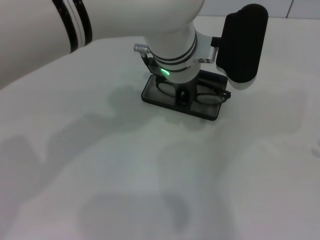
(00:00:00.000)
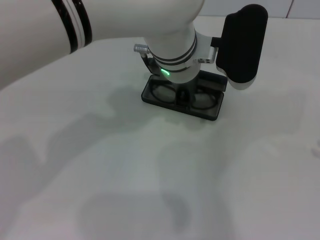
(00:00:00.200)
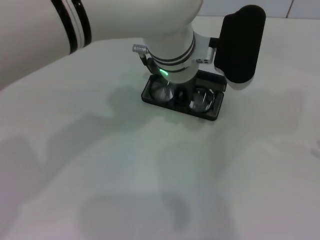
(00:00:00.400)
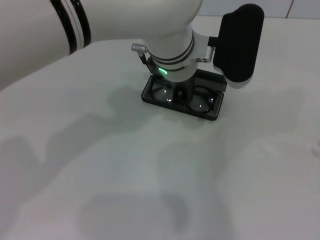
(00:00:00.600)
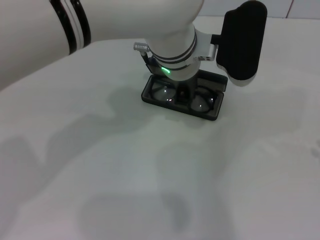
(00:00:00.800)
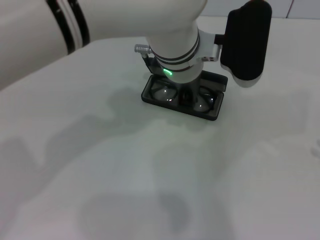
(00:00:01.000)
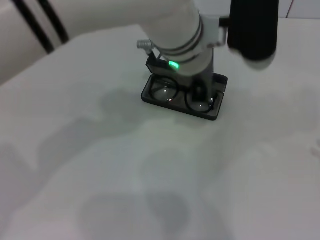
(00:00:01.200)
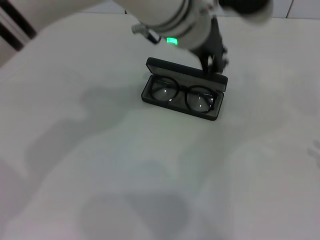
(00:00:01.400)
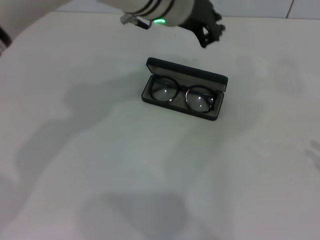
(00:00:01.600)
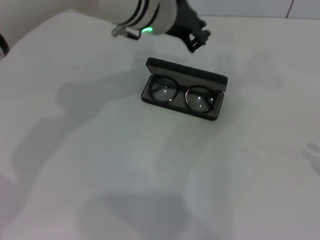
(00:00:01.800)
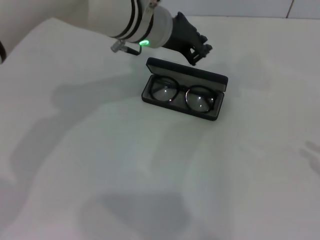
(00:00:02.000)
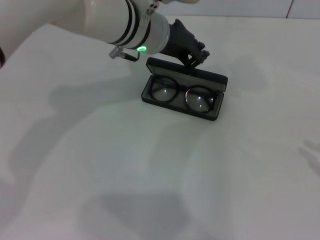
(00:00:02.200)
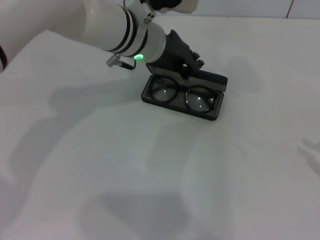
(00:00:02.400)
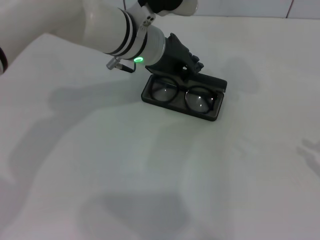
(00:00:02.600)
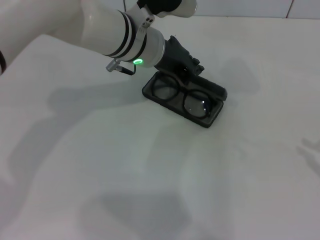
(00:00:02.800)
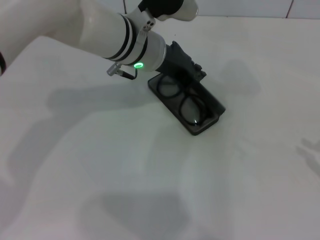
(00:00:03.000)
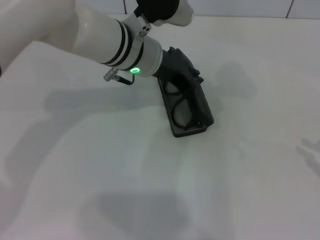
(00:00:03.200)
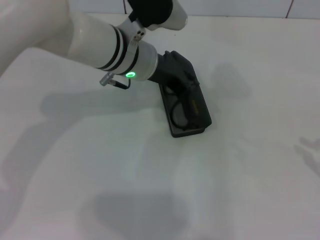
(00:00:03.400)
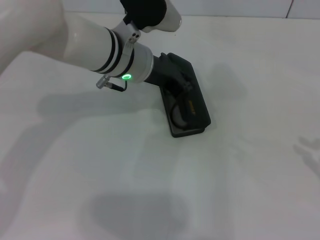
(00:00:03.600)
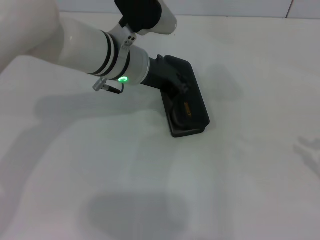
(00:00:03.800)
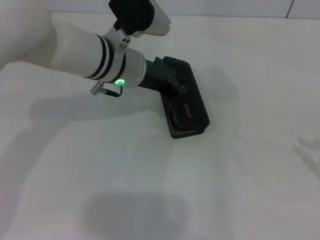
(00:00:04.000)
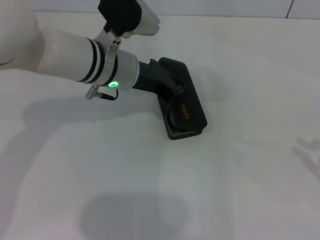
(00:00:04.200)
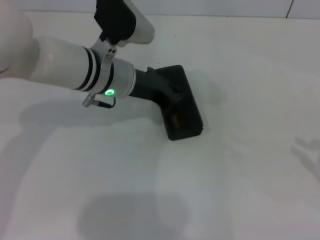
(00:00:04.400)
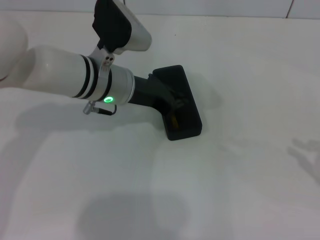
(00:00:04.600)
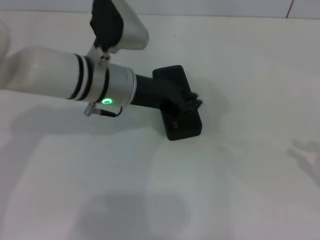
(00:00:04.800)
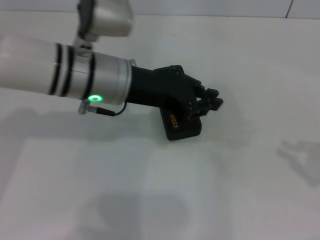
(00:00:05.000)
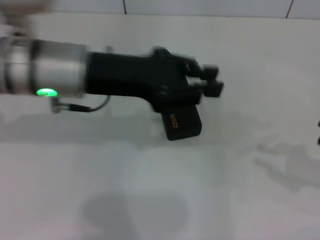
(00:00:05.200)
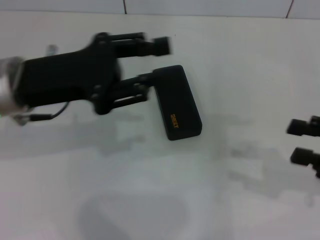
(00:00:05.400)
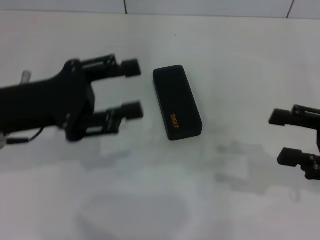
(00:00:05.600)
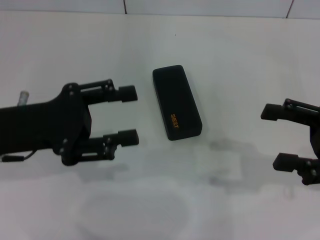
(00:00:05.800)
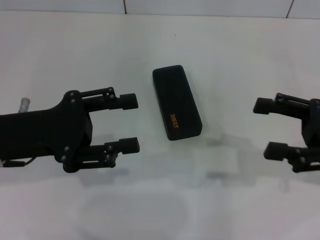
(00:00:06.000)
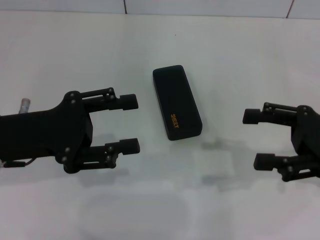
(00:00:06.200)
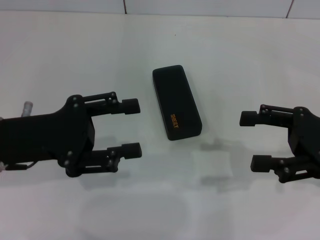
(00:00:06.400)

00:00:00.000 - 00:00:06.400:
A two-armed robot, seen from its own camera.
Step, 00:00:01.000 - 00:00:04.600: Close the glasses case with your left hand.
00:00:00.000 - 00:00:01.600: The left gripper shifts roughly 5 cm upward.
00:00:01.600 - 00:00:03.200: The left gripper is displaced downward by some 10 cm.
00:00:03.200 - 00:00:04.800: The left gripper ends up about 5 cm from where it was.
00:00:04.800 - 00:00:06.400: The right gripper shifts approximately 15 cm to the left and forward, and opens up. The left gripper shifts about 15 cm to the left and backward, and opens.
